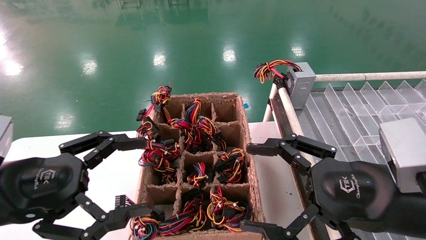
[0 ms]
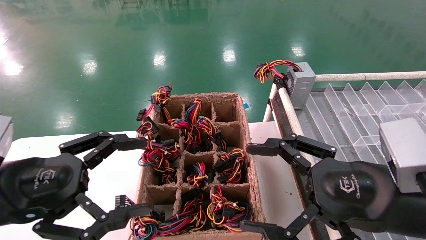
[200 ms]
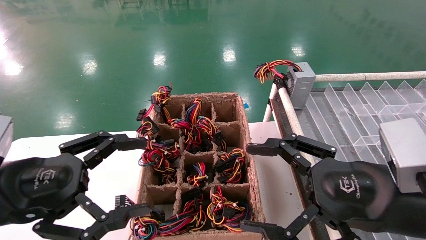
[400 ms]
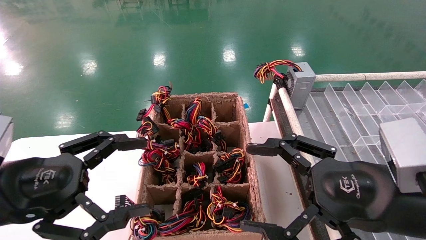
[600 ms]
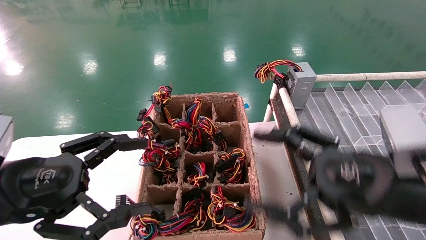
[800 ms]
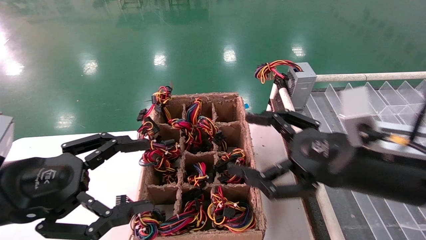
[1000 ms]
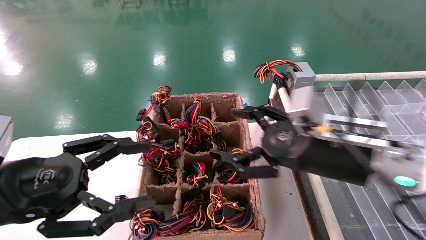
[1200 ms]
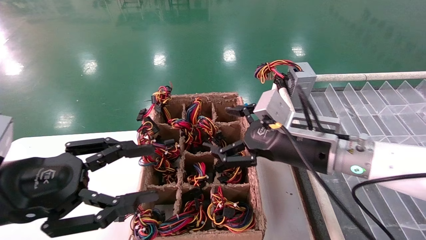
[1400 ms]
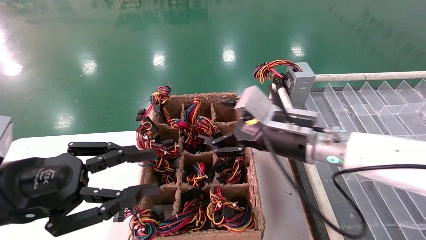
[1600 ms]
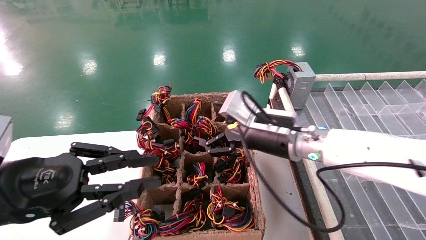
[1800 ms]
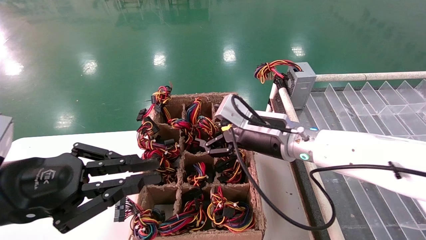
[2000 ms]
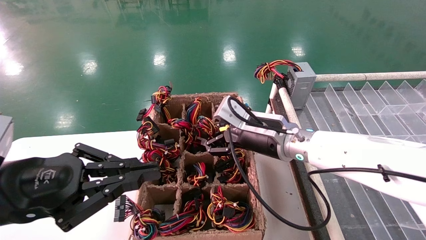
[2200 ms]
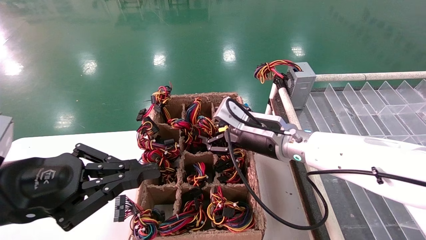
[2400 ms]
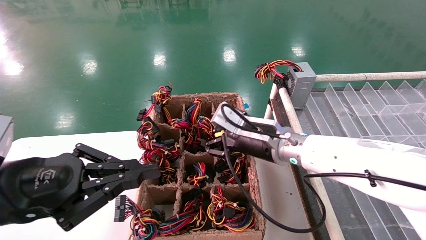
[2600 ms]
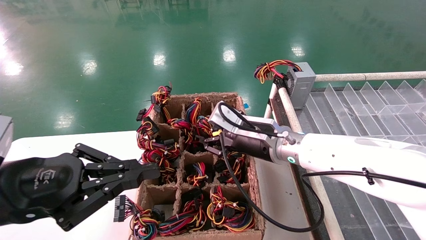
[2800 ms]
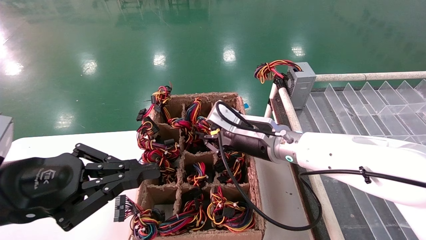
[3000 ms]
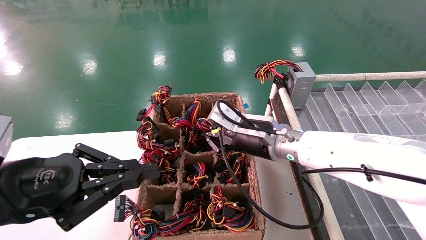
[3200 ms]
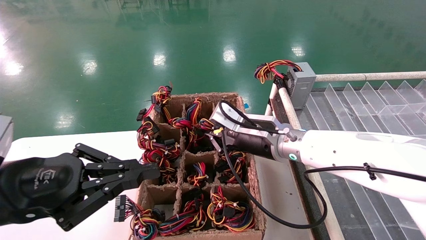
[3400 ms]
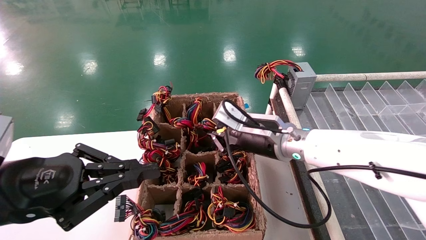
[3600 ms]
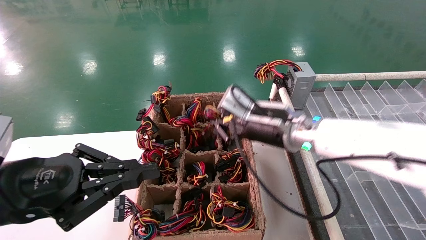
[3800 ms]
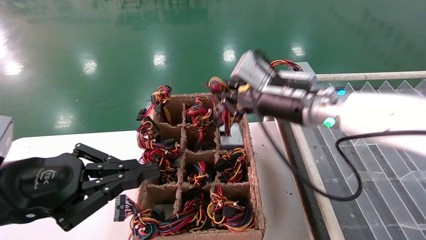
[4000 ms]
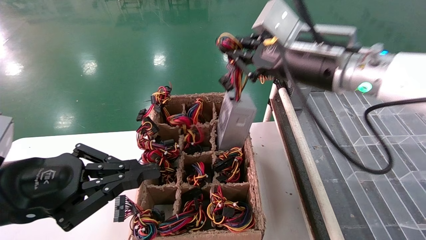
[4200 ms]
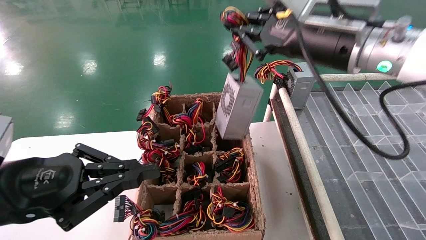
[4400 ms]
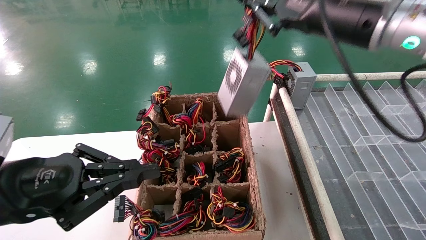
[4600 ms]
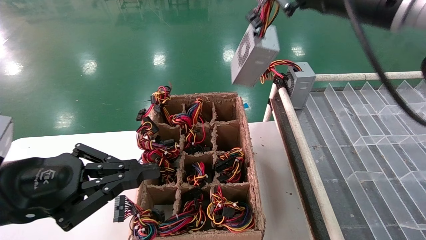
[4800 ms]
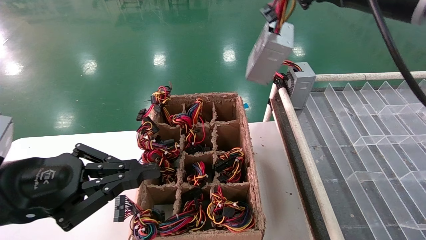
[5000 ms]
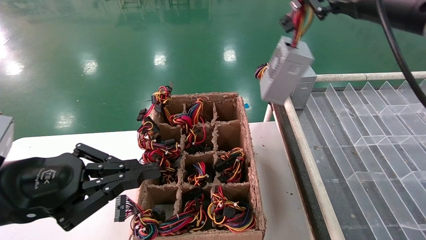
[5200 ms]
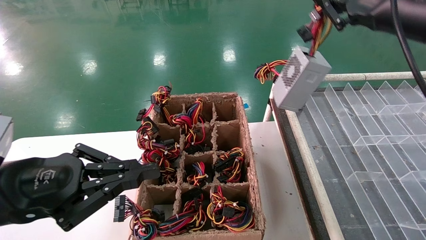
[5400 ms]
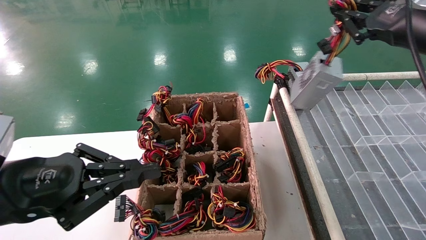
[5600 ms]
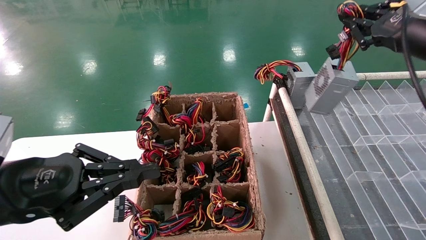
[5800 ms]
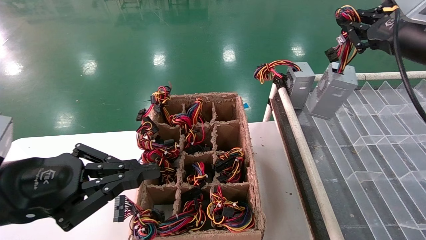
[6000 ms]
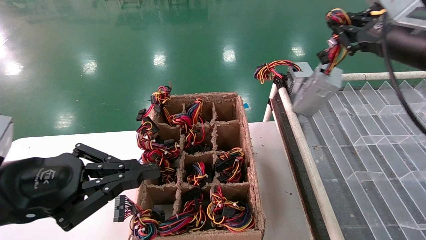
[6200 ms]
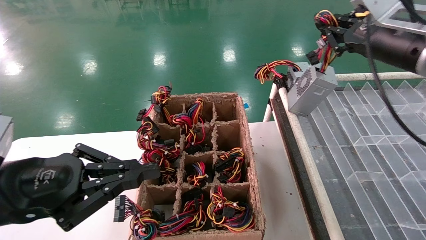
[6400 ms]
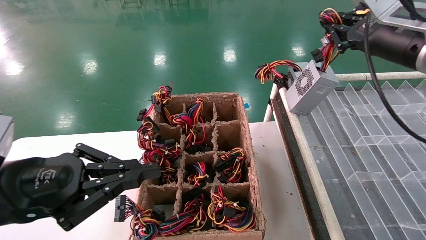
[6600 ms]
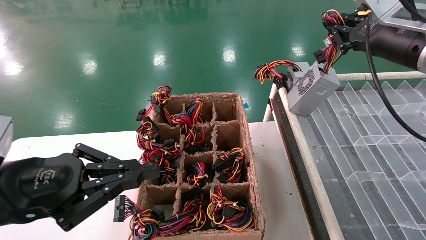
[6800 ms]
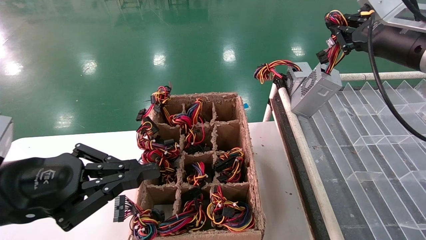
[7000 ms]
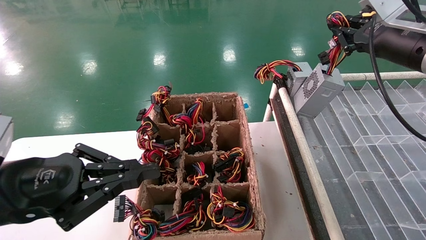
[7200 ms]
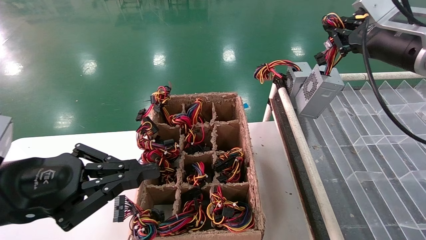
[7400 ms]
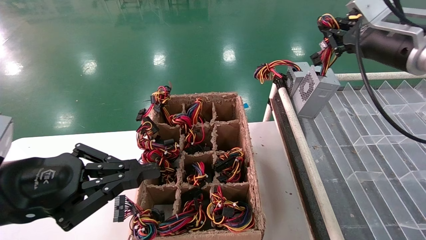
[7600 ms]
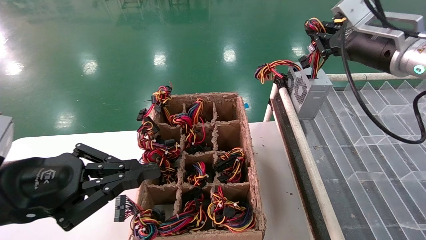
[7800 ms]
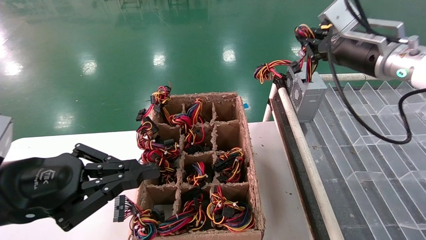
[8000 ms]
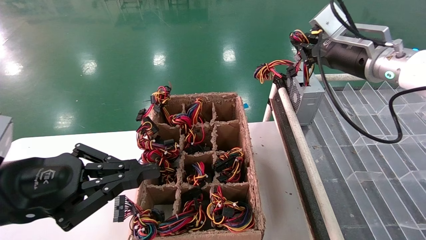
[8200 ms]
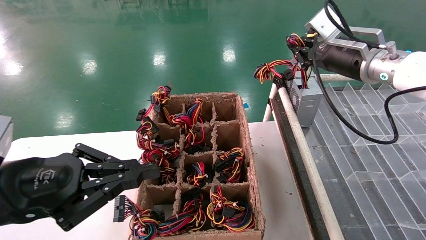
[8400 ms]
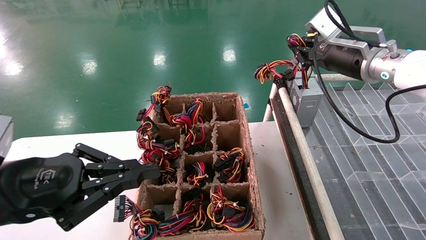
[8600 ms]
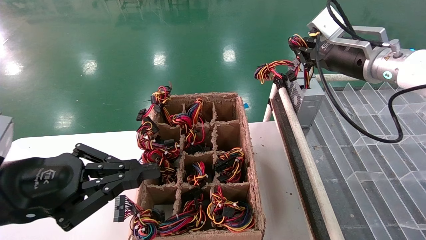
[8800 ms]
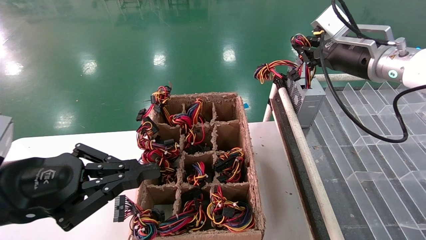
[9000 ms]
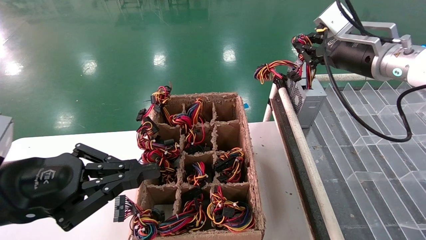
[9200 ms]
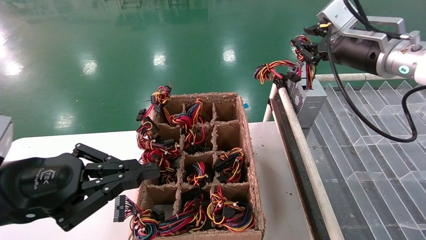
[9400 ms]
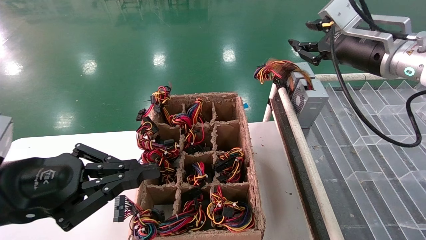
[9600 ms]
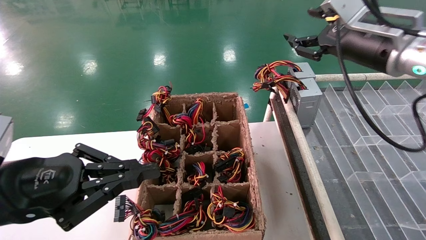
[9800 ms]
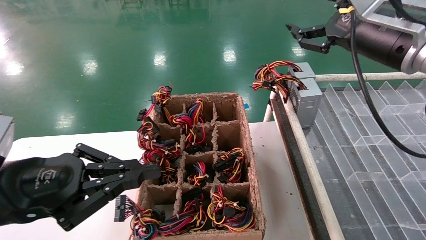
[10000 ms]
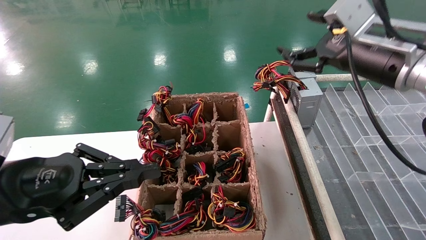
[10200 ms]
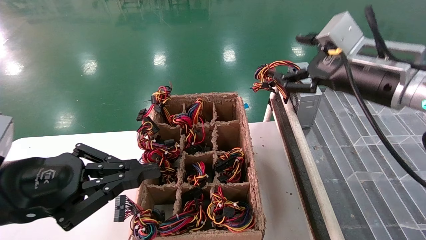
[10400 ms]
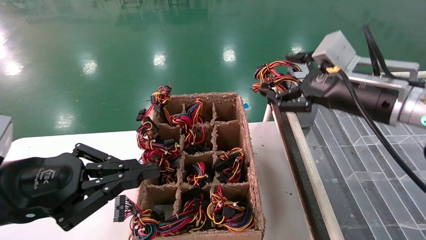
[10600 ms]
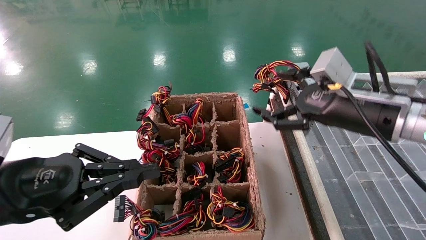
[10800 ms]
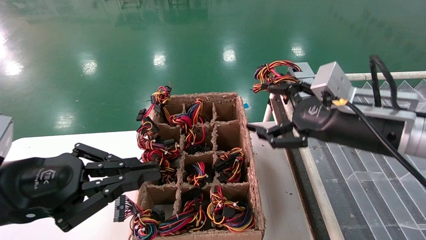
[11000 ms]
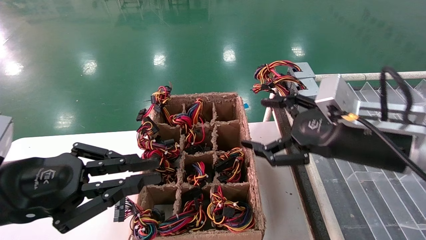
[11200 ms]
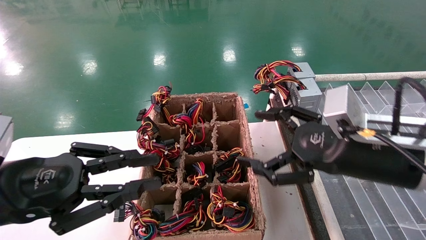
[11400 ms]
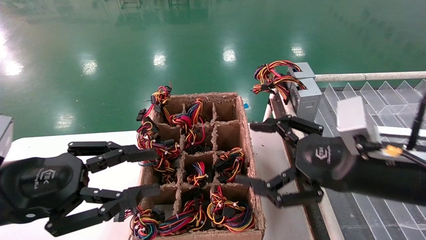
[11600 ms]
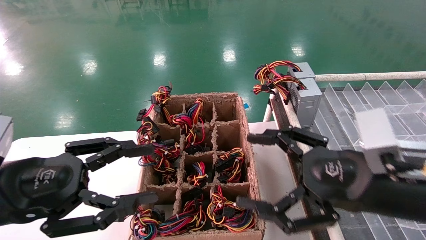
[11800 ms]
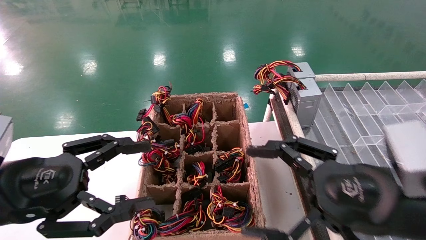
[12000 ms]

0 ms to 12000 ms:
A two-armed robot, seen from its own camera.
Step, 1000 ms to 3400 ms: Grab the main unit power supply from the containment box.
Step, 3600 ms to 9600 ms: Place the main unit power supply in the designated area.
0 ms to 1600 ms: The right gripper heads forward and to the left, covering approximately 15 cm. Meanwhile the left gripper closes its fingers.
1600 ms to 3000 ms: The left gripper closes, while the right gripper ends up approximately 5 cm from where it was, and closes its fingers.
3000 ms to 4400 ms: The right gripper travels upward and to the right by about 20 cm, and closes its fingers.
4400 ms to 6000 ms: The right gripper goes approximately 15 cm to the right.
6000 ms to 7600 ms: The grippers move only a little.
7600 ms to 9000 ms: There are only small adjustments of the grippers.
9000 ms to 10400 ms: The right gripper is displaced backward by approximately 5 cm, and opens.
10400 ms to 12000 ms: The right gripper moves backward and downward, some 15 cm; the left gripper opens up.

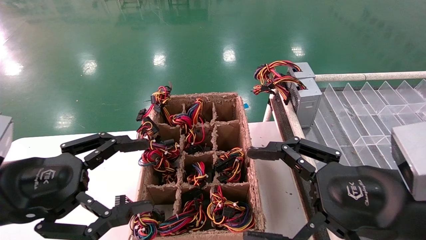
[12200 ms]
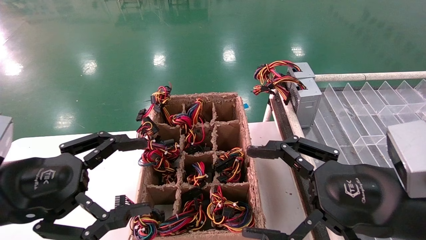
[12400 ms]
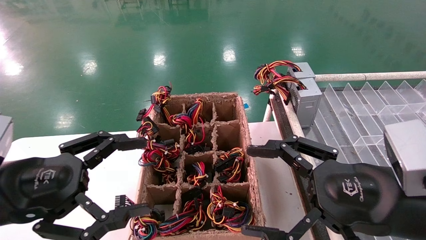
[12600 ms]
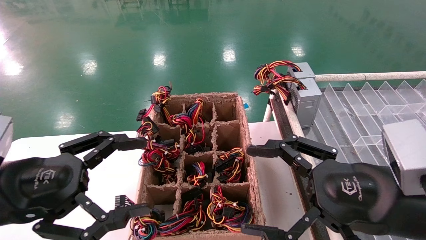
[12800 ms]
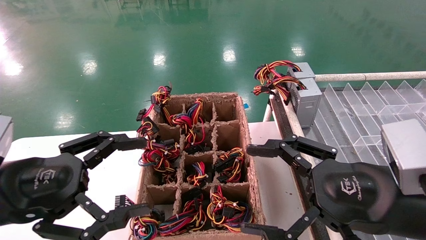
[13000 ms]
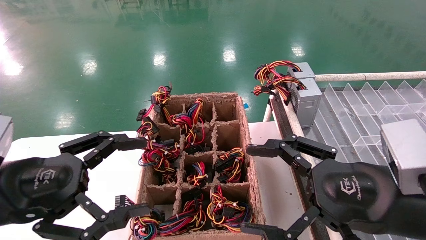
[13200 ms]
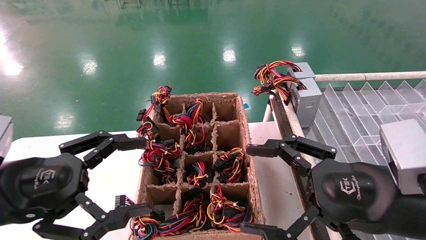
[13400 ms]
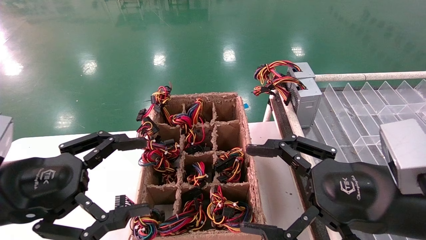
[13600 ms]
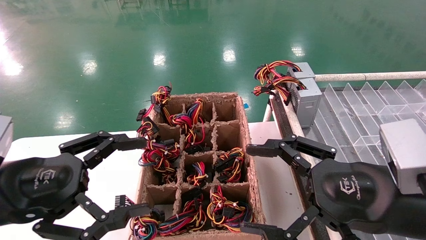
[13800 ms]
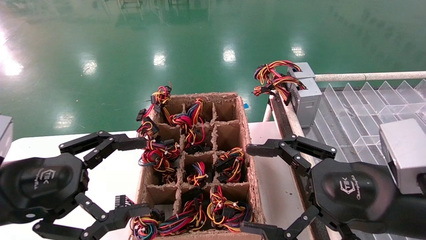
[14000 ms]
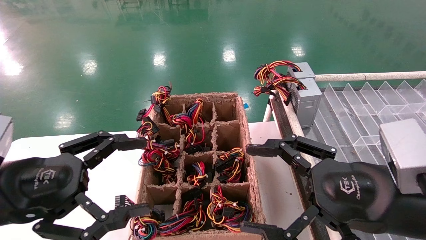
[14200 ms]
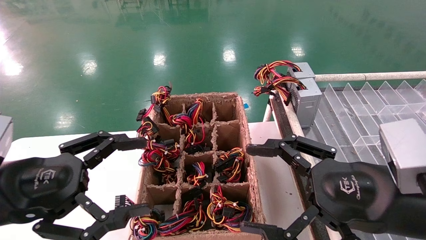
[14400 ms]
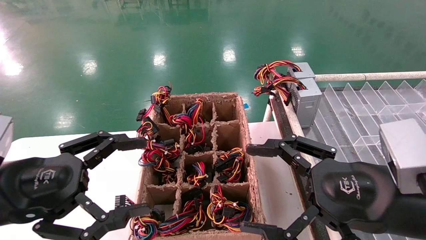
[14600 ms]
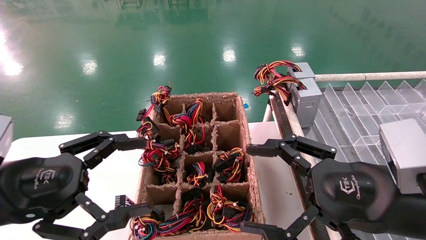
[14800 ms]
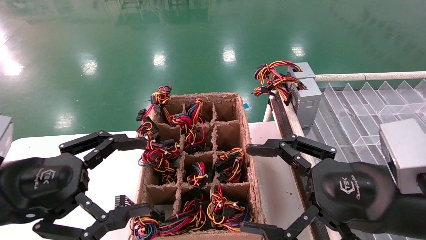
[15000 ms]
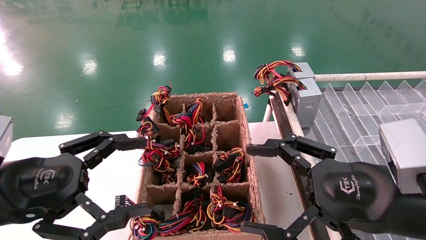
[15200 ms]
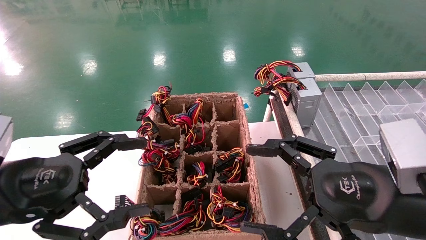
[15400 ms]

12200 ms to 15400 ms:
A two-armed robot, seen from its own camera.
12200 ms to 15400 ms: Both grippers stay about where they are.
